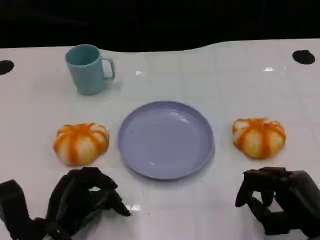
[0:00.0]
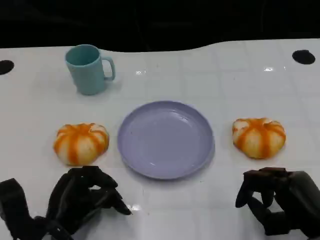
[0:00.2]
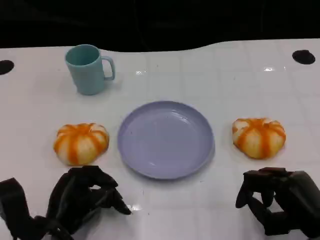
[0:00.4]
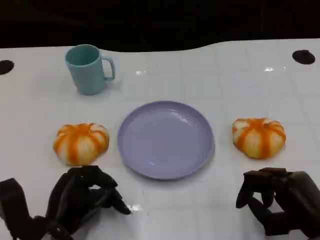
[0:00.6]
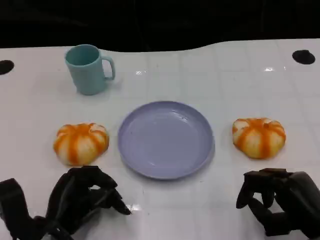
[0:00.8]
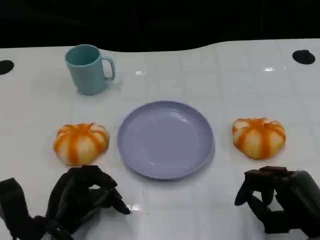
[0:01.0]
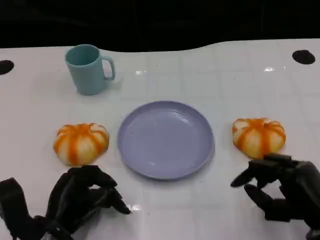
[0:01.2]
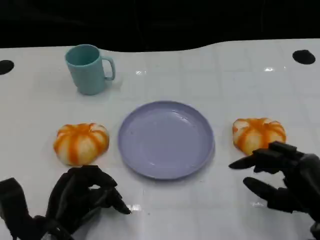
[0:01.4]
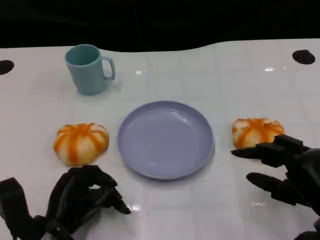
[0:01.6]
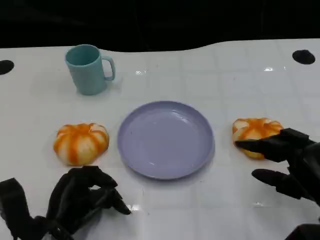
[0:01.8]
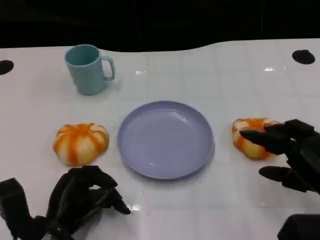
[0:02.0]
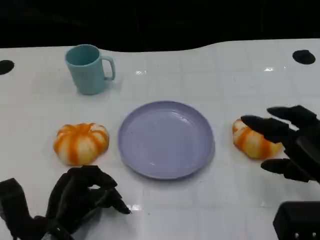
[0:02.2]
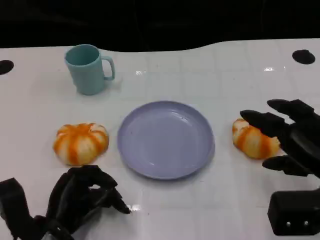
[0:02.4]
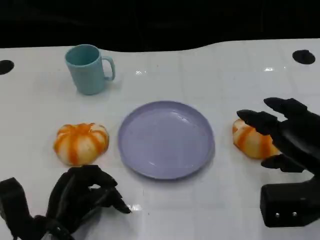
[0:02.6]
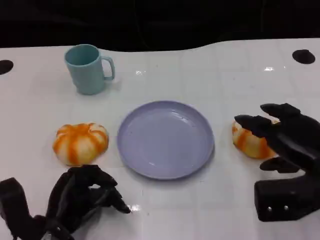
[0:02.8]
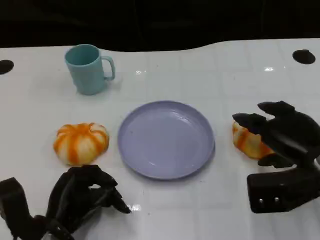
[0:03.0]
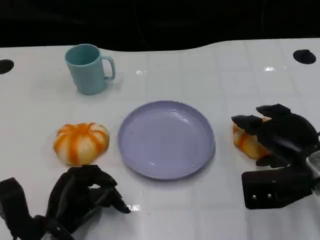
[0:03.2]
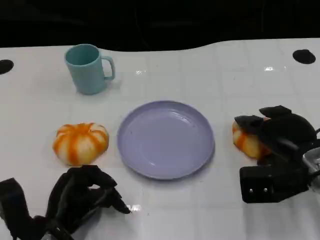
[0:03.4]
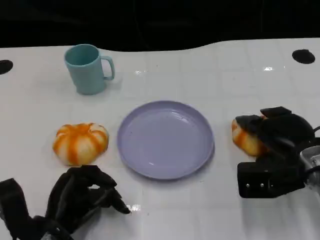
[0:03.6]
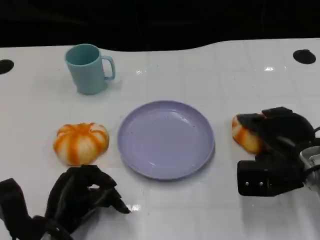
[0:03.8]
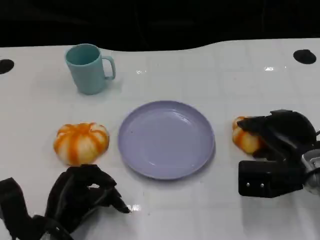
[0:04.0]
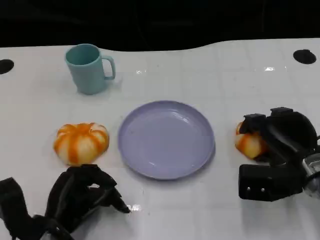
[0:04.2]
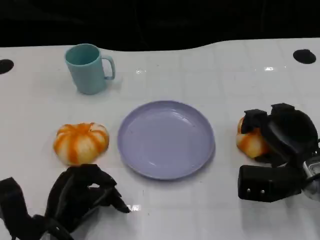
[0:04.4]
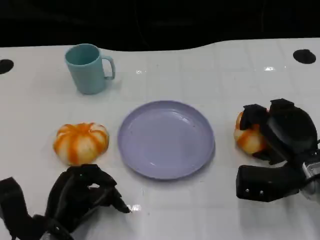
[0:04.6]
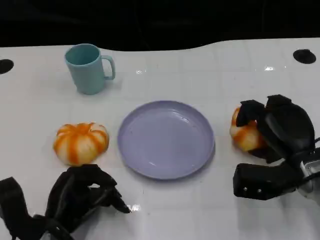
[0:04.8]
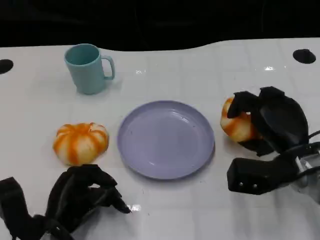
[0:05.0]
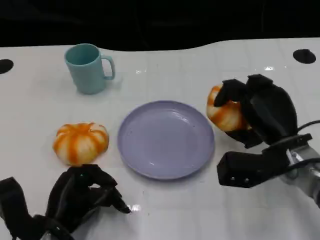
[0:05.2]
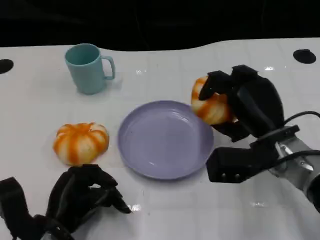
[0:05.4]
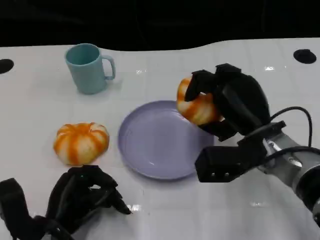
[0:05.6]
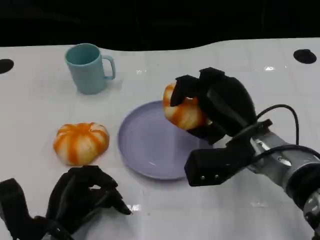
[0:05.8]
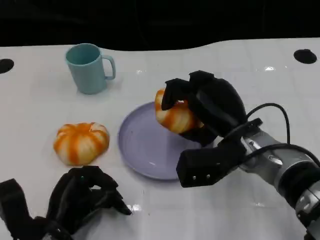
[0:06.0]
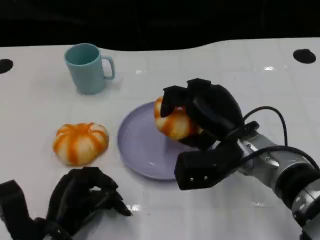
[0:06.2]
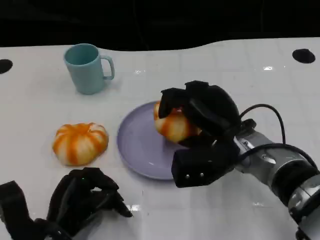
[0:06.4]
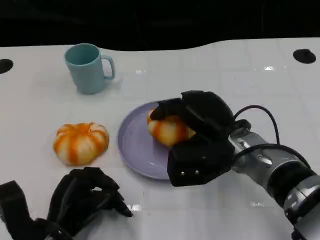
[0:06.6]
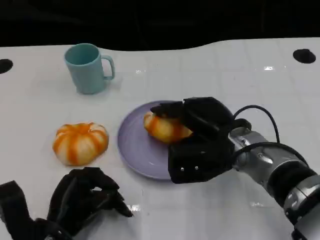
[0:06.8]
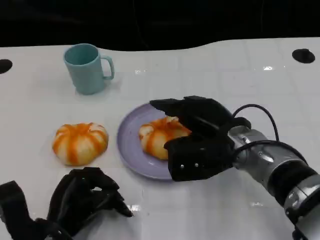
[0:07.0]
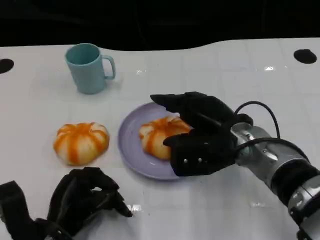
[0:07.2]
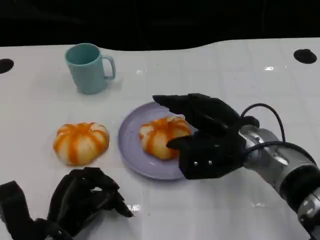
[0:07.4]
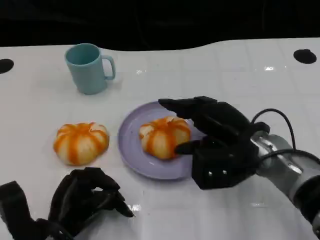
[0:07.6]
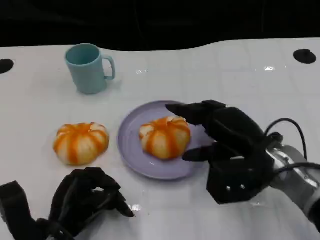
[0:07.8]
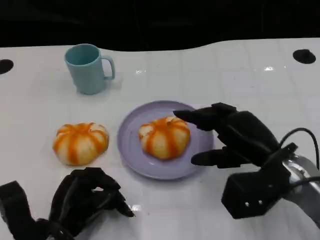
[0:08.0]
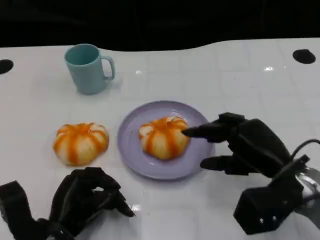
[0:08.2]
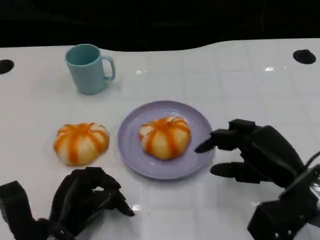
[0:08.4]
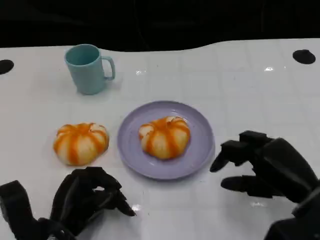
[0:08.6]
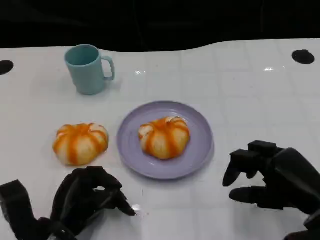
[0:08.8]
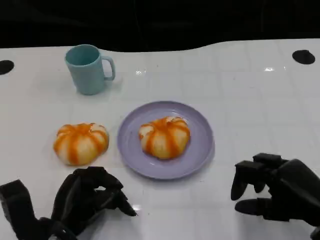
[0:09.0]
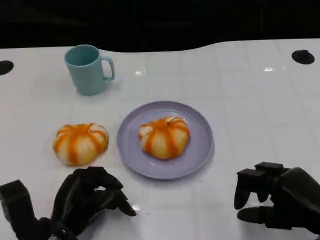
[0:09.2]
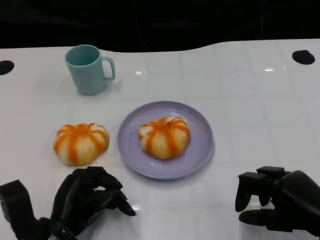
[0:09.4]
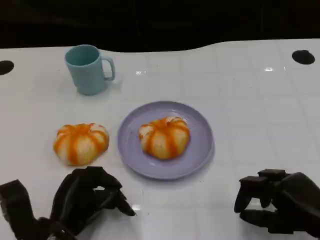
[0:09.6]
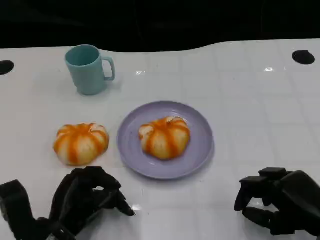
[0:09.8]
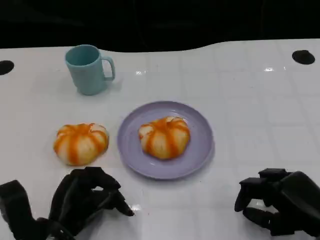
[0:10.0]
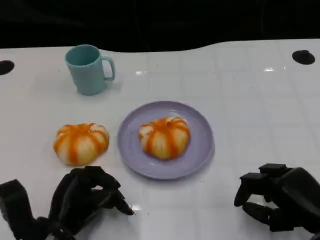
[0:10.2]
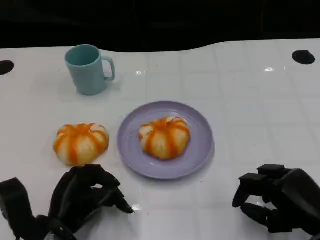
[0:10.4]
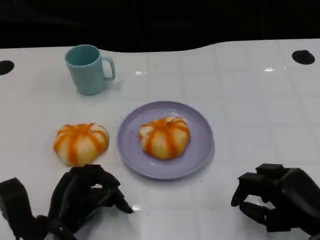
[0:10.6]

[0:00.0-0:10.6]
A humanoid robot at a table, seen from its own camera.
Task of the whole recording: Grasp the bread from the table and place it into the plate.
0:00.0 to 0:01.6: The hands make only small movements.
0:01.6 to 0:03.0: The right hand heads forward, covering some 10 cm.
0:03.0 to 0:04.6: The hands move only a little.
0:04.6 to 0:06.0: The right hand heads to the left, covering roughly 10 cm.
0:07.6 to 0:09.0: The right hand travels backward and to the right by approximately 15 cm.
0:09.0 to 0:10.6: There are only small adjustments of the hands.
